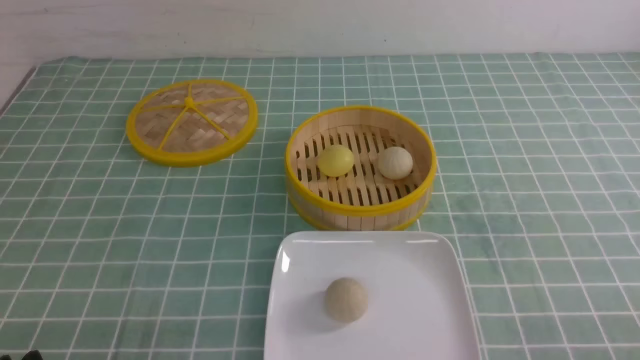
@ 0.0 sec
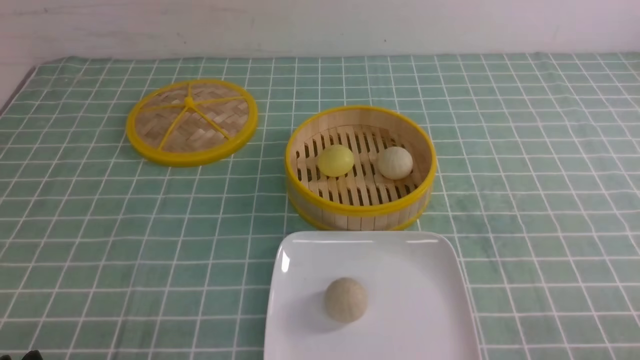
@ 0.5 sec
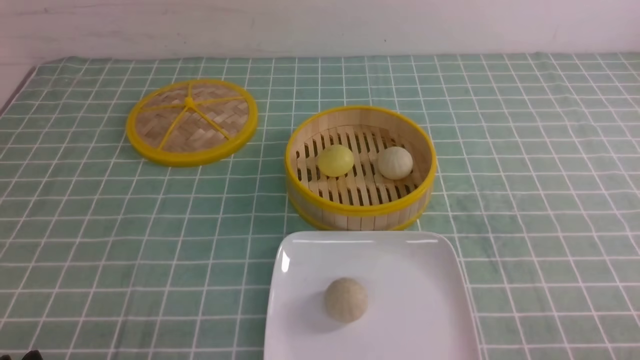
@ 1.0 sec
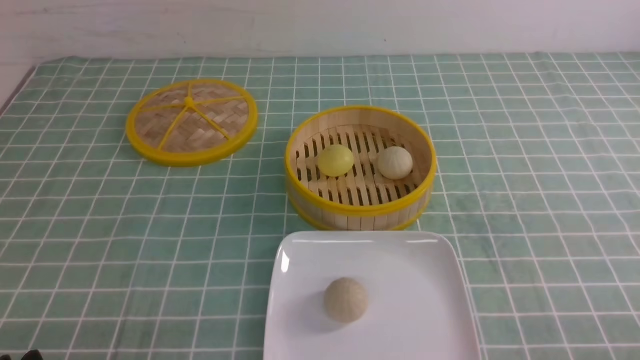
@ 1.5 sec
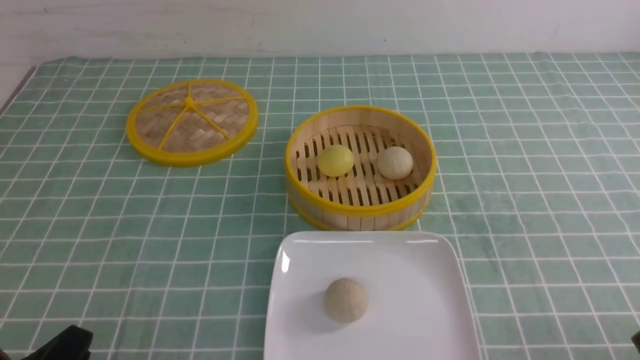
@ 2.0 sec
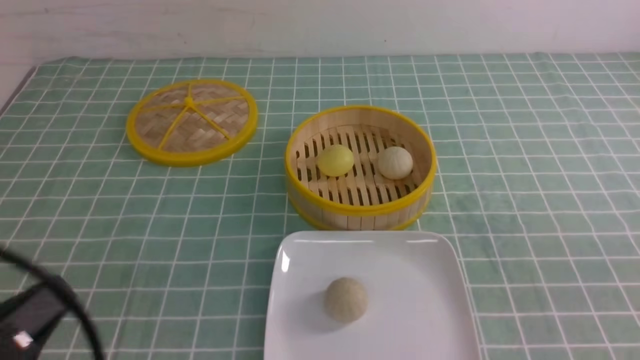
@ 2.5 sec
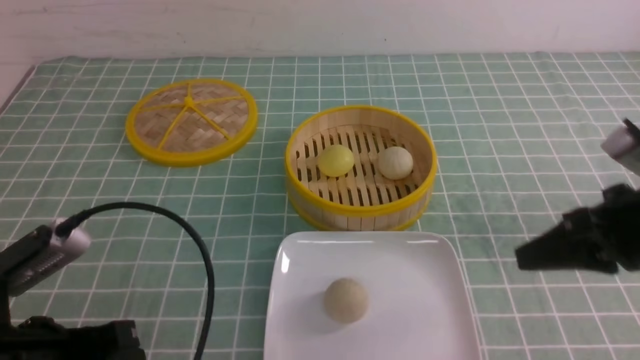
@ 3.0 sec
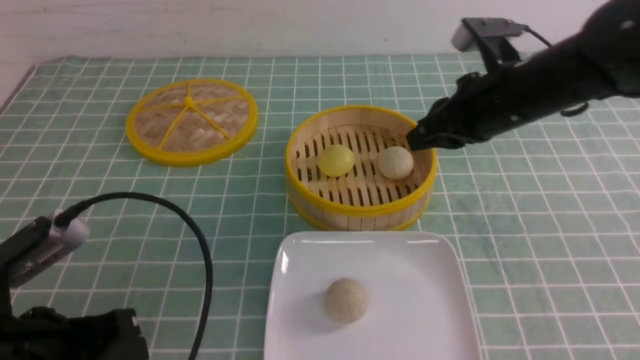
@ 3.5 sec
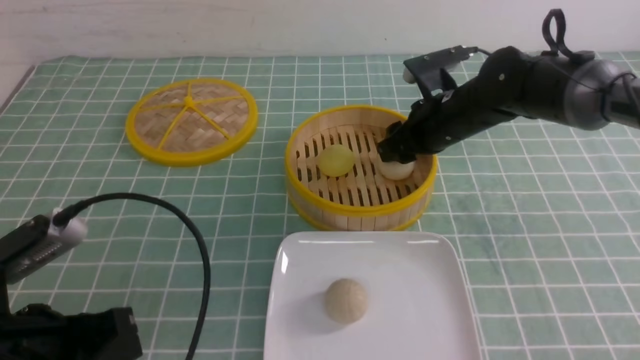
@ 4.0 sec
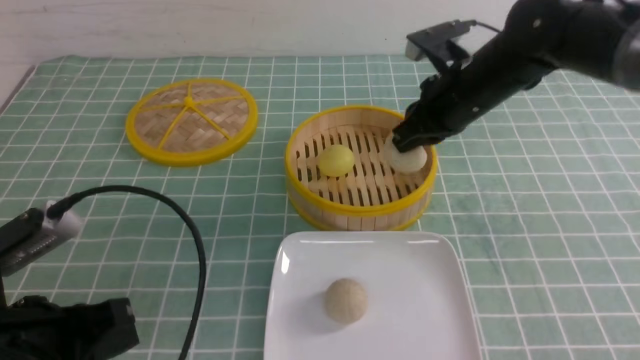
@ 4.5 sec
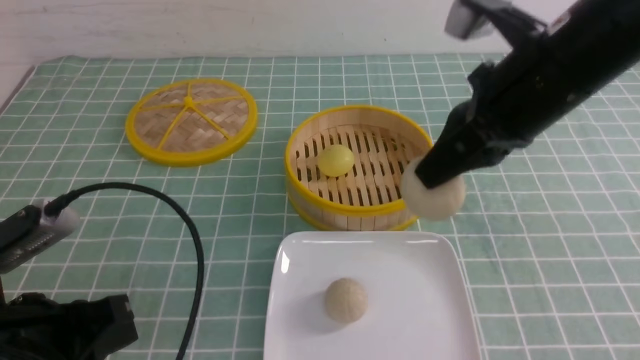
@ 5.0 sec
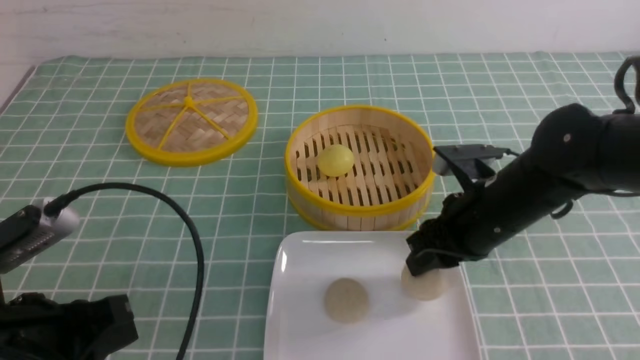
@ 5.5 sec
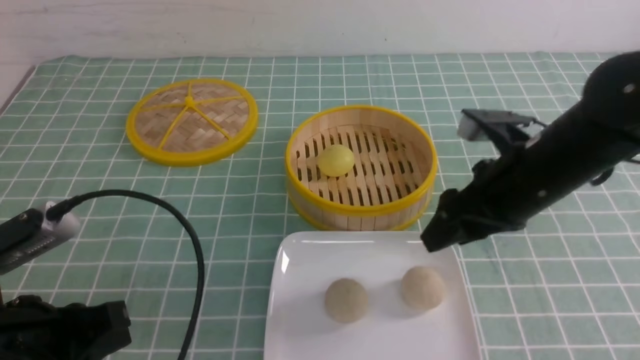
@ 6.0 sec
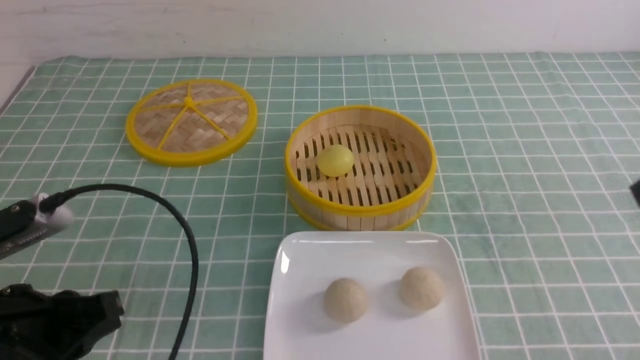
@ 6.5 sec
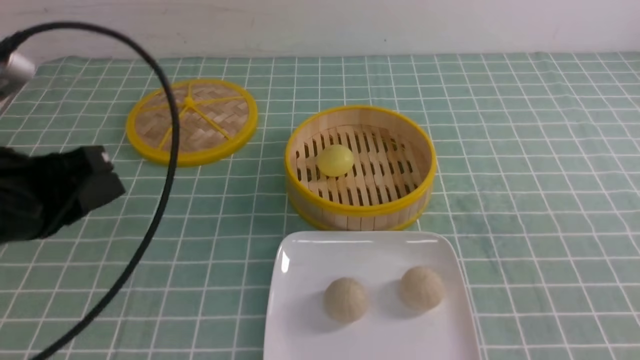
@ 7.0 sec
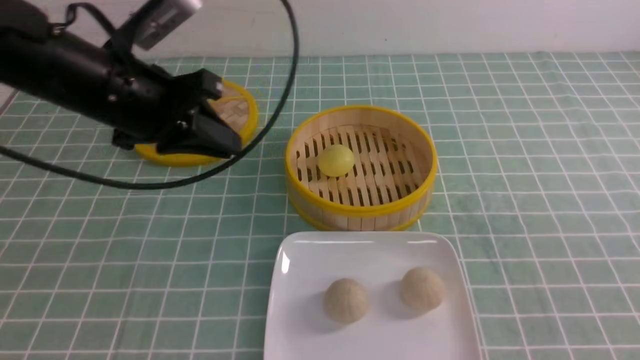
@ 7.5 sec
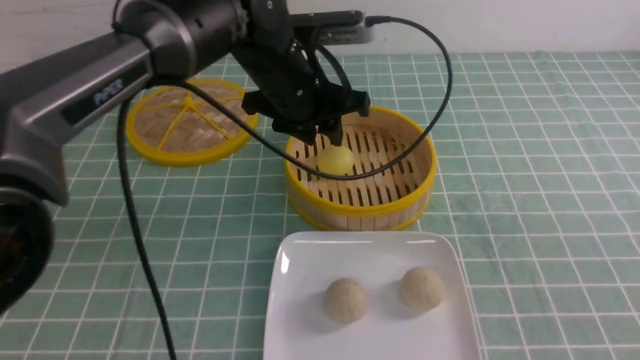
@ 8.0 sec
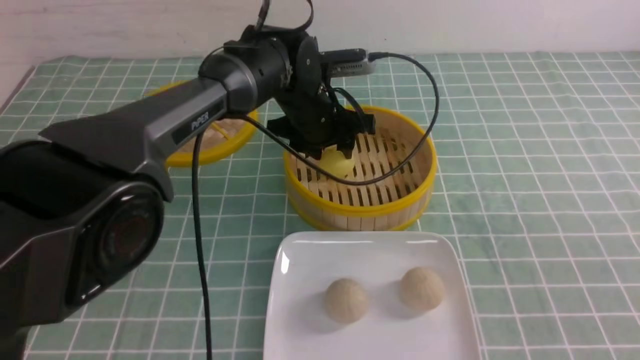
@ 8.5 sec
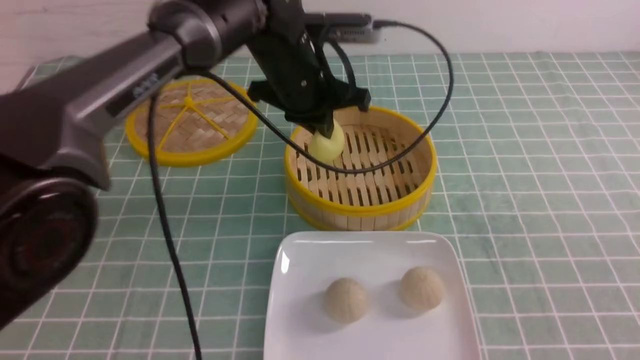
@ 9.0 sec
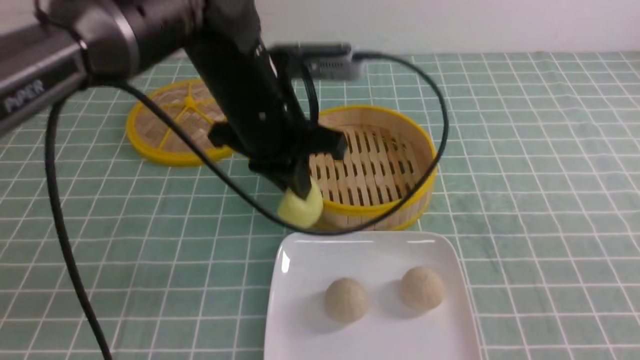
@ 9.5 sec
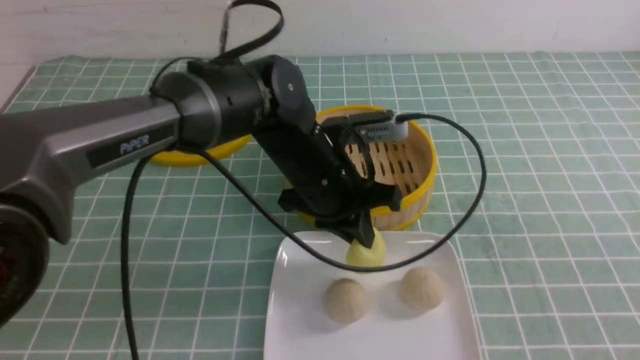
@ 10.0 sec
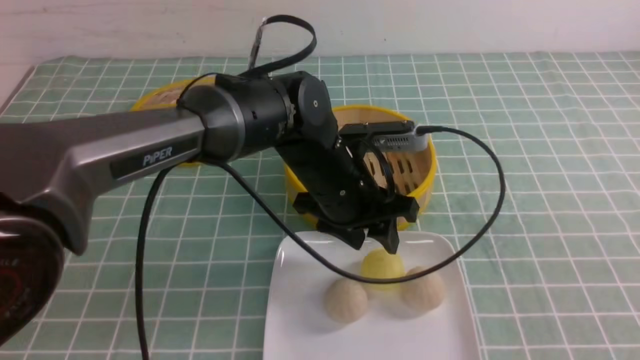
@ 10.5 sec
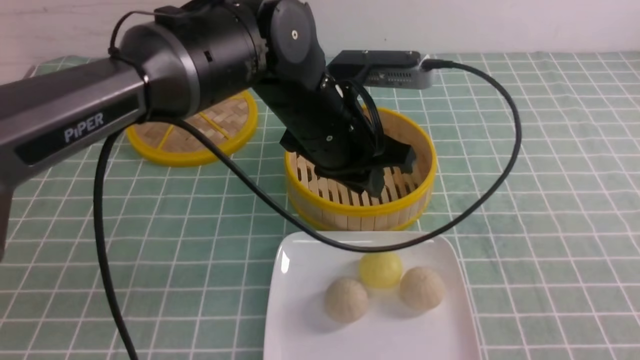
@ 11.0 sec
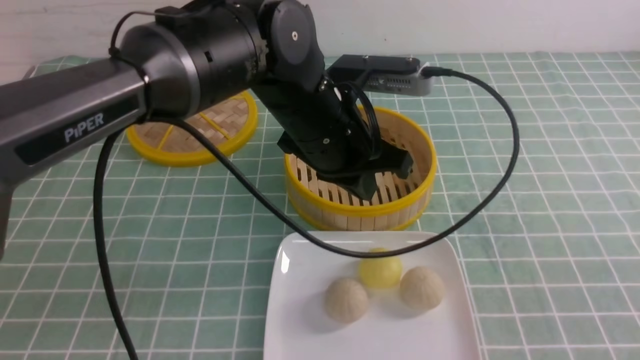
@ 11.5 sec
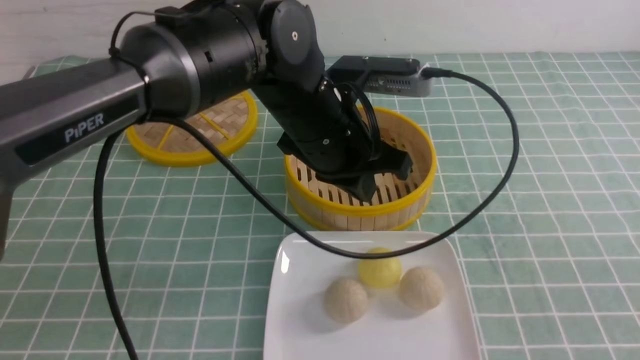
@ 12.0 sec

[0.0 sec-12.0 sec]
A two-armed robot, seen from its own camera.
Step, 0.0 sec to 4.0 sec: use the right arm to grab the steamed stuffed bun that is closest to it.
Step, 4.5 sec to 5.5 sec: use the right arm to put the steamed stuffed bun into the plate.
Step, 6.0 sec to 8.5 sec: use the left arm to grab the steamed stuffed bun that is closest to it.
Step, 9.0 sec to 10.0 sec: use the left arm to put the steamed stuffed bun into the plate.
2.0 sec to 4.0 sec: The right gripper is displaced forward and to the left by roughly 40 cm, and closes and opens again. Meanwhile the left gripper is displaced forward and upward by some 10 cm, and closes its fingers.
4.0 sec to 6.0 sec: The right gripper shifts some 15 cm backward, travels upward and back again, roughly 15 cm each way, and closes and opens again.
6.0 sec to 8.0 sec: The left gripper goes about 30 cm forward and to the right, and opens its fingers; the right gripper shifts about 25 cm backward and to the right, and closes its fingers.
8.0 sec to 10.0 sec: The left gripper is displaced downward by approximately 5 cm, and closes up.
10.0 sec to 12.0 sec: The left gripper shifts approximately 5 cm upward, and opens and closes again.

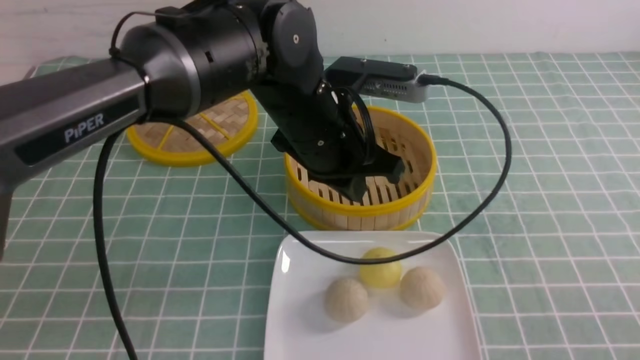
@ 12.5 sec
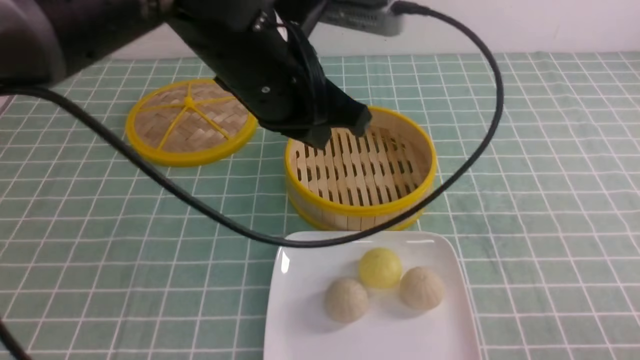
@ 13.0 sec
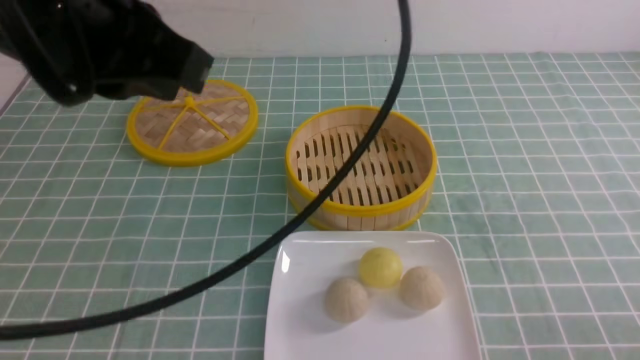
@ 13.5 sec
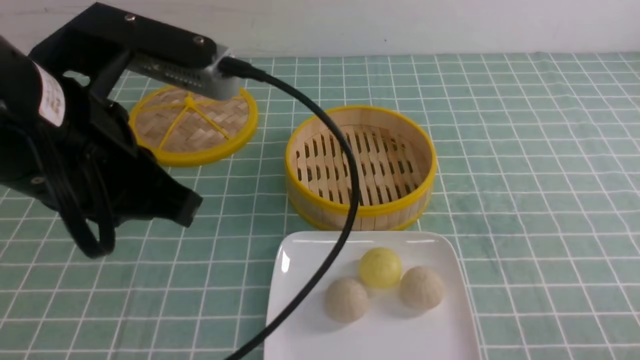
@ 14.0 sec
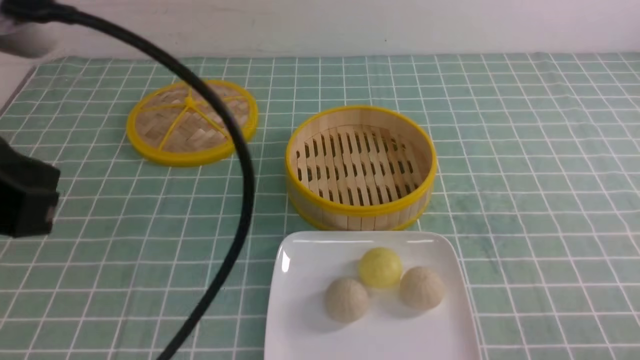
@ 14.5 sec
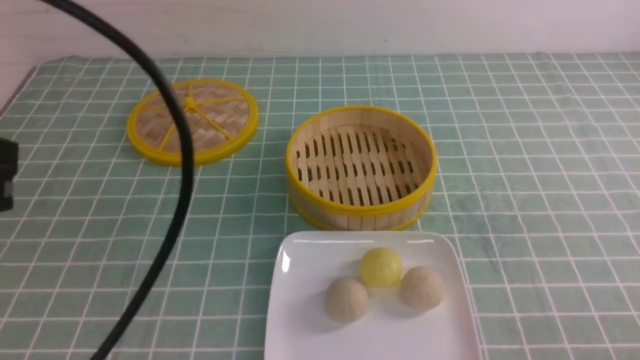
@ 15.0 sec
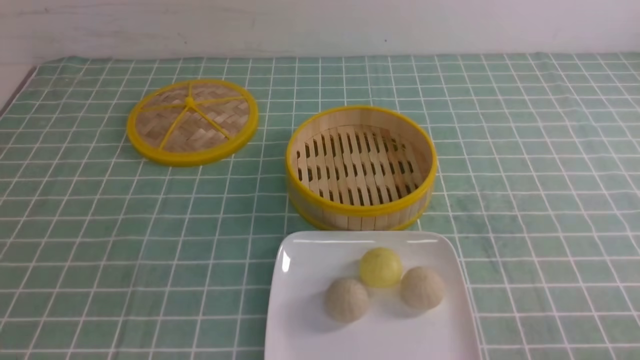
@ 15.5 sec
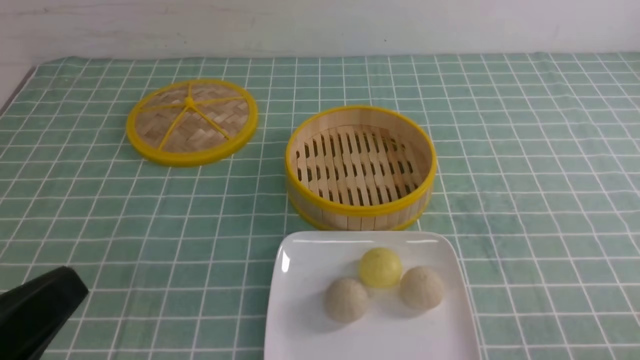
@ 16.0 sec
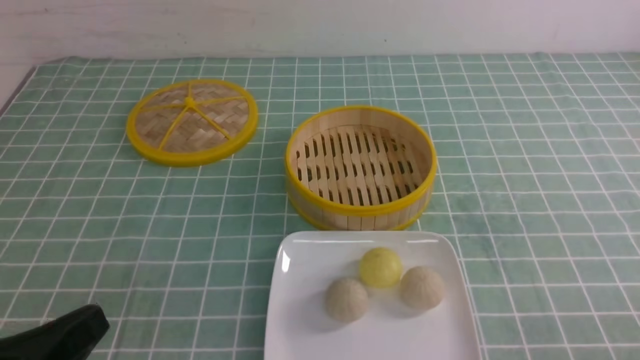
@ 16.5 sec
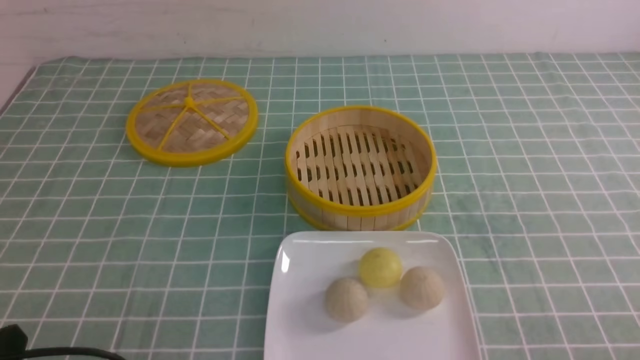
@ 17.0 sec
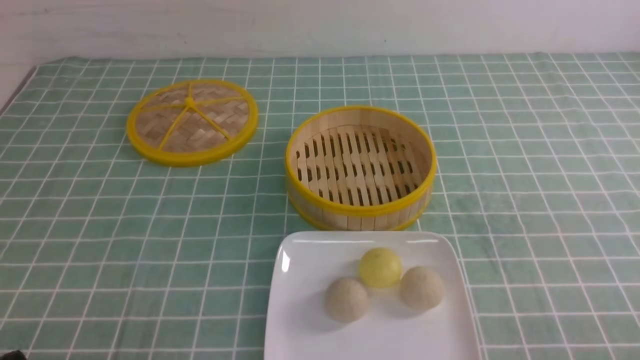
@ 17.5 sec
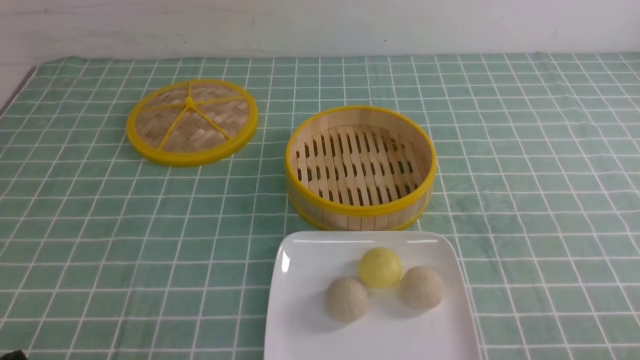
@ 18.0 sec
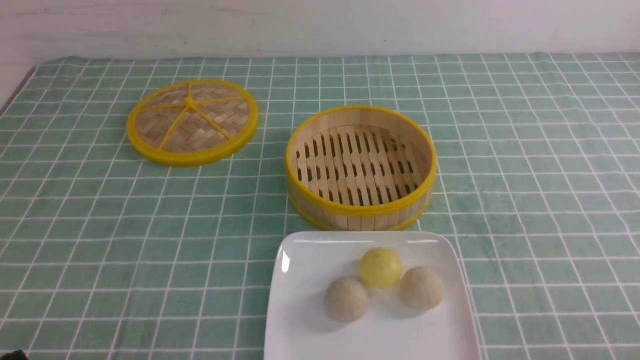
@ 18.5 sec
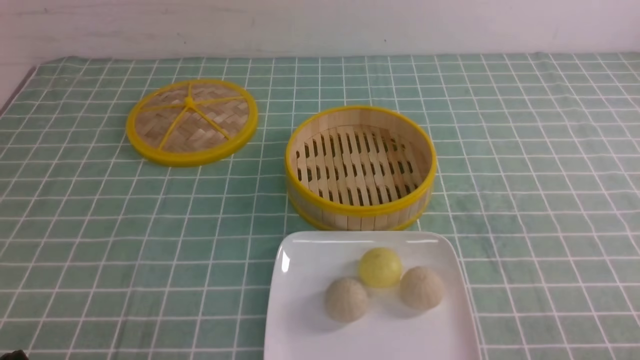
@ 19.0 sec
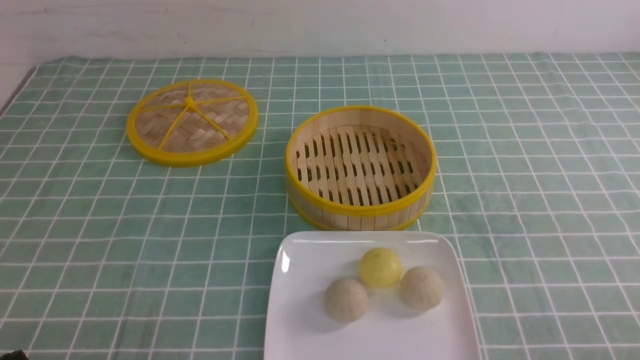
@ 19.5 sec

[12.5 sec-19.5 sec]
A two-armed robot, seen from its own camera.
12.5 sec to 14.5 sec: The right gripper is displaced downward by roughly 5 cm, while the left gripper shifts roughly 30 cm backward, to the left and upward.
14.5 sec to 16.0 sec: The left gripper is displaced downward and backward by approximately 15 cm.
16.0 sec to 17.5 sec: The left gripper shifts approximately 15 cm downward.
17.5 sec to 19.5 sec: Both grippers stay about where they are.
